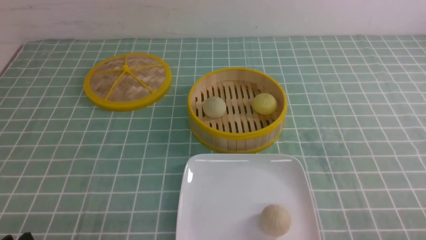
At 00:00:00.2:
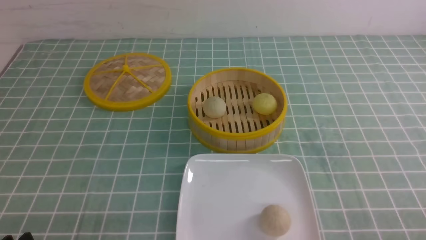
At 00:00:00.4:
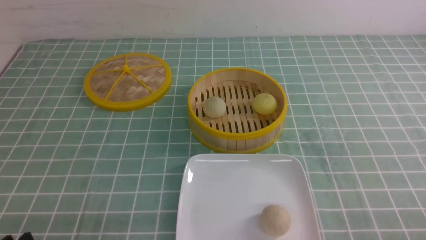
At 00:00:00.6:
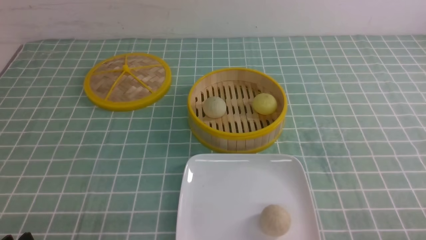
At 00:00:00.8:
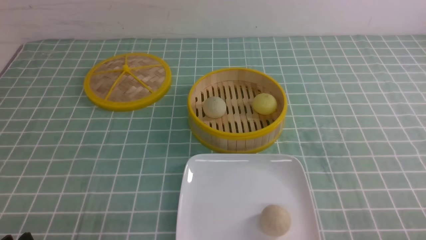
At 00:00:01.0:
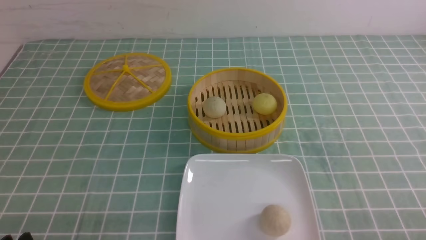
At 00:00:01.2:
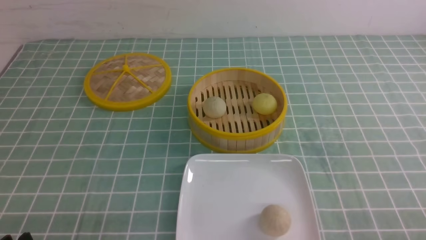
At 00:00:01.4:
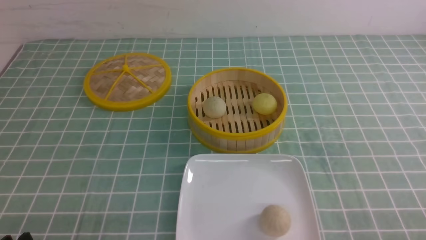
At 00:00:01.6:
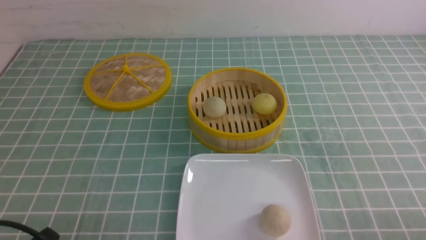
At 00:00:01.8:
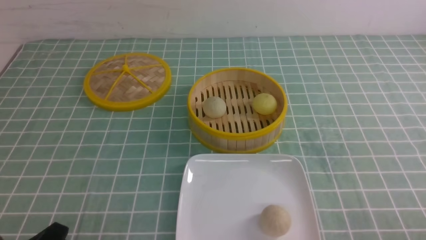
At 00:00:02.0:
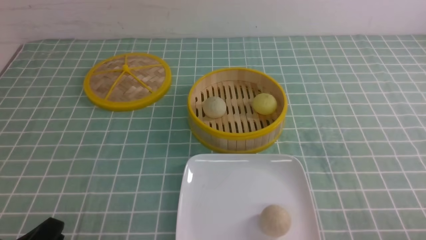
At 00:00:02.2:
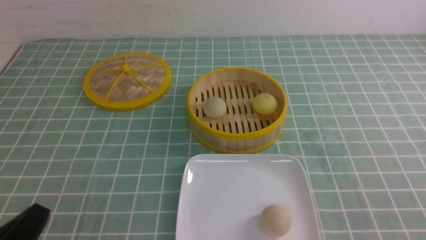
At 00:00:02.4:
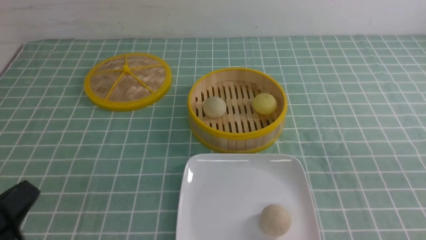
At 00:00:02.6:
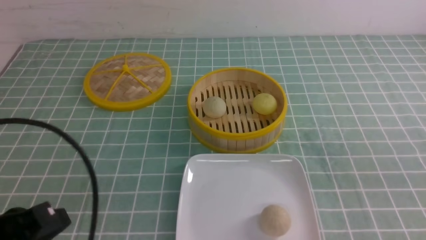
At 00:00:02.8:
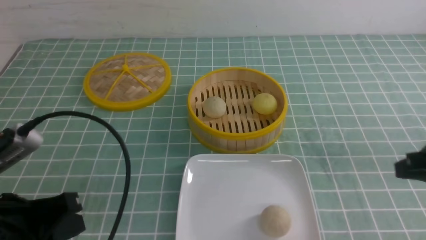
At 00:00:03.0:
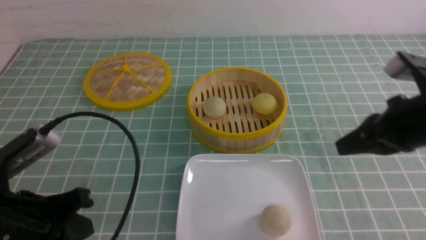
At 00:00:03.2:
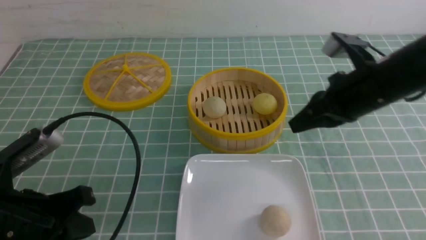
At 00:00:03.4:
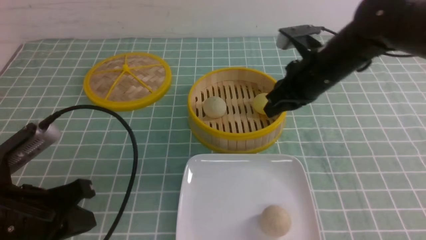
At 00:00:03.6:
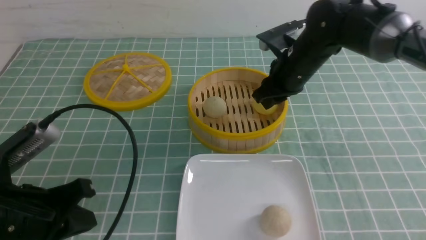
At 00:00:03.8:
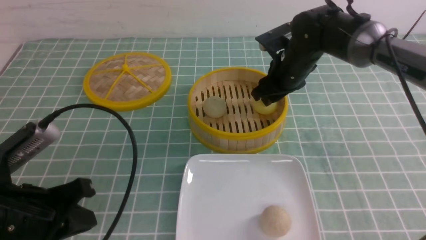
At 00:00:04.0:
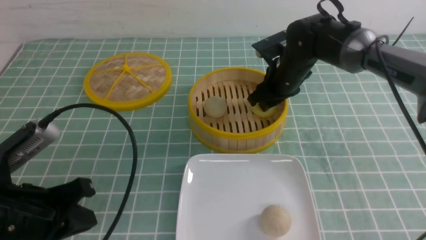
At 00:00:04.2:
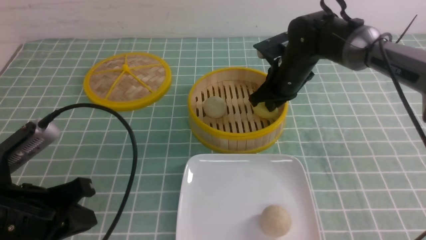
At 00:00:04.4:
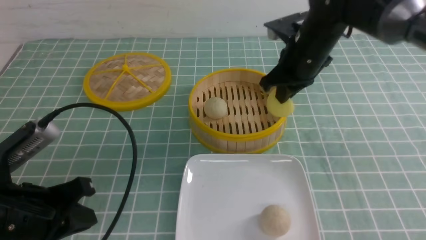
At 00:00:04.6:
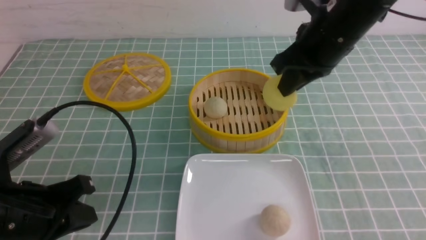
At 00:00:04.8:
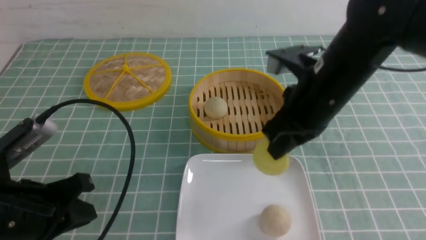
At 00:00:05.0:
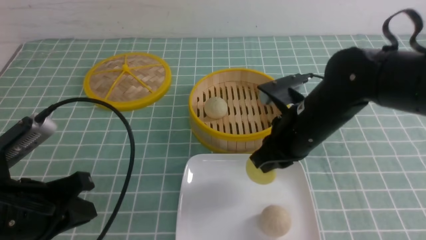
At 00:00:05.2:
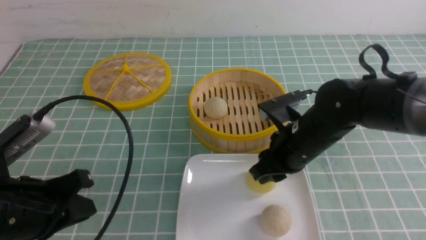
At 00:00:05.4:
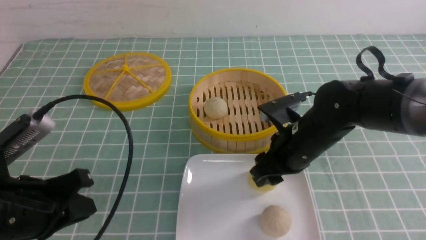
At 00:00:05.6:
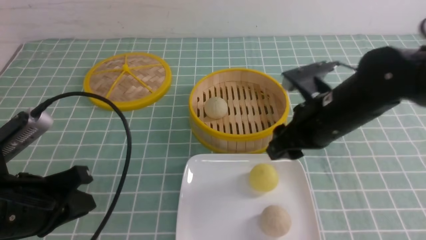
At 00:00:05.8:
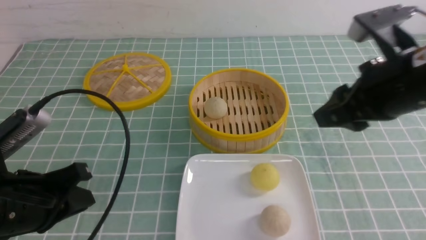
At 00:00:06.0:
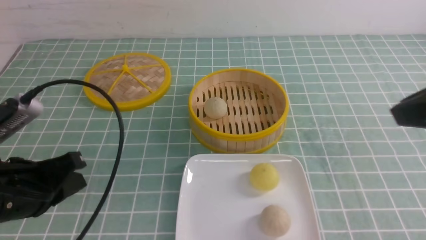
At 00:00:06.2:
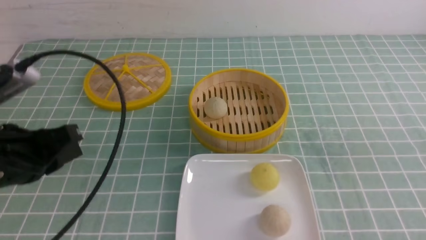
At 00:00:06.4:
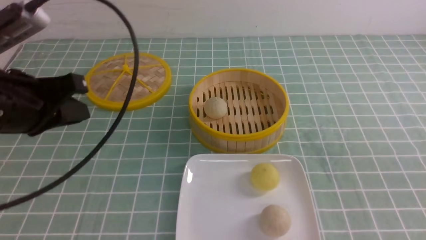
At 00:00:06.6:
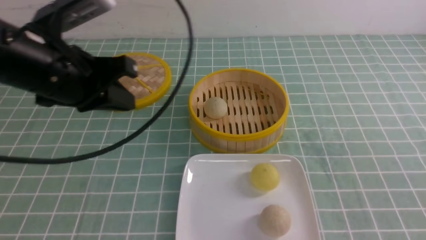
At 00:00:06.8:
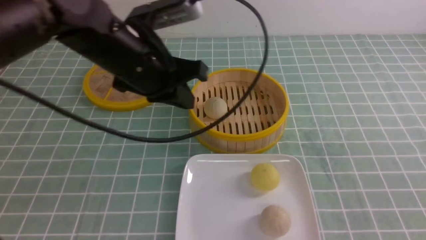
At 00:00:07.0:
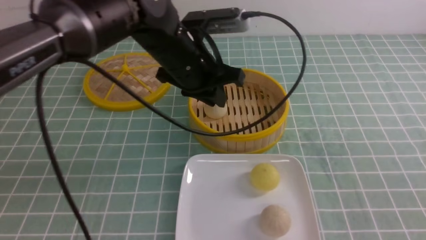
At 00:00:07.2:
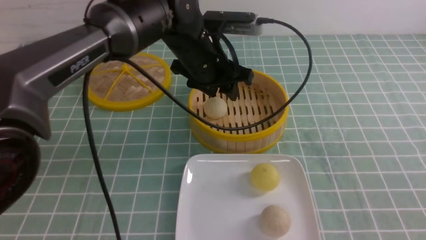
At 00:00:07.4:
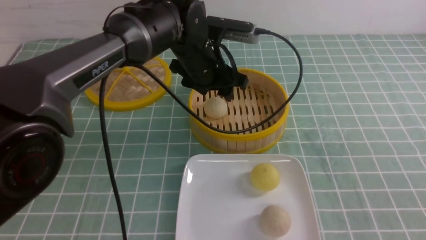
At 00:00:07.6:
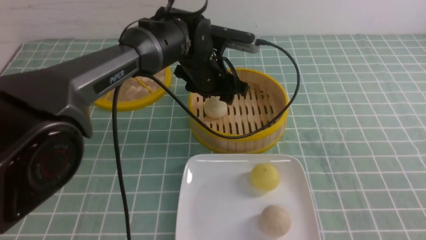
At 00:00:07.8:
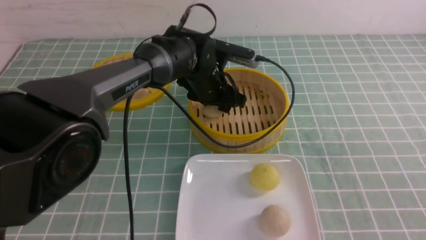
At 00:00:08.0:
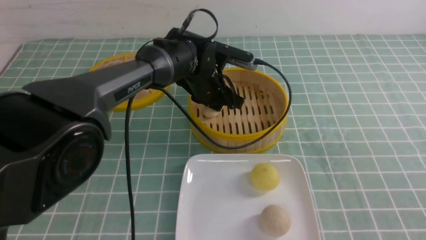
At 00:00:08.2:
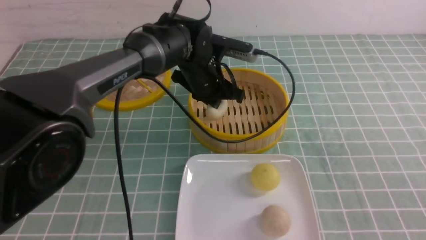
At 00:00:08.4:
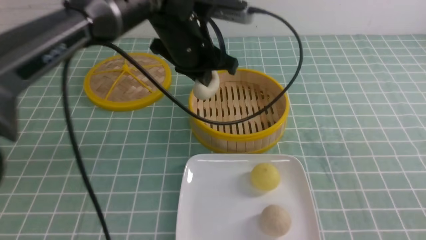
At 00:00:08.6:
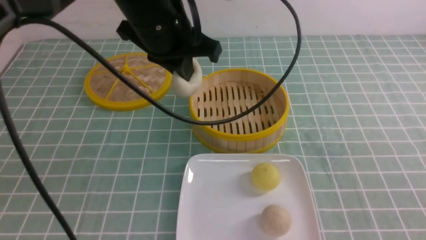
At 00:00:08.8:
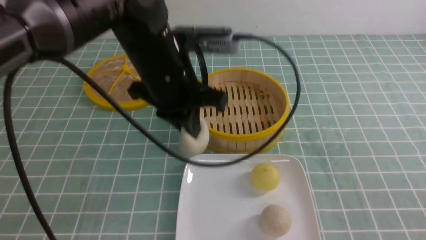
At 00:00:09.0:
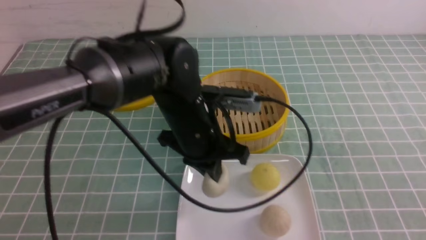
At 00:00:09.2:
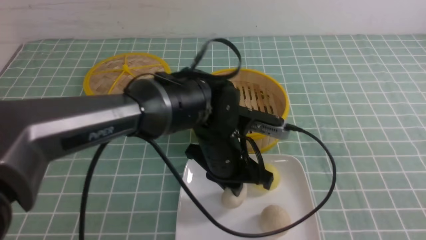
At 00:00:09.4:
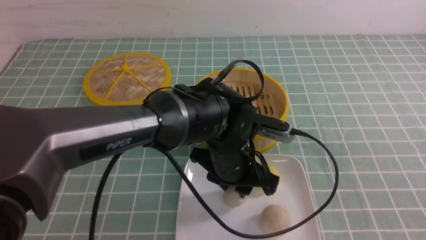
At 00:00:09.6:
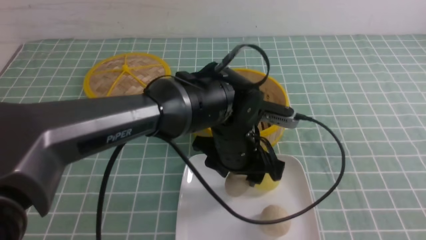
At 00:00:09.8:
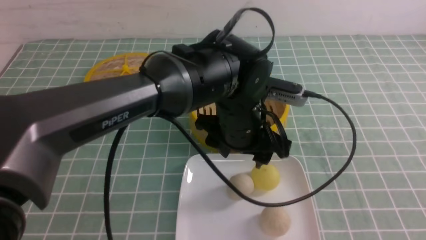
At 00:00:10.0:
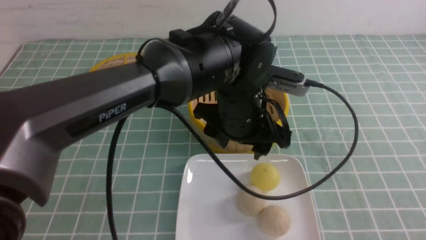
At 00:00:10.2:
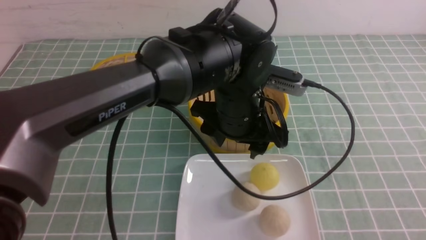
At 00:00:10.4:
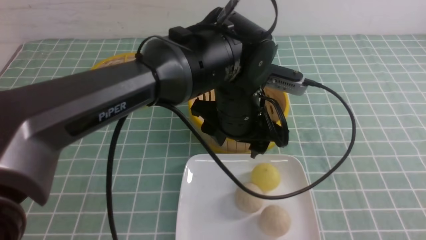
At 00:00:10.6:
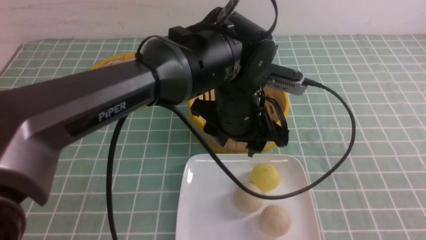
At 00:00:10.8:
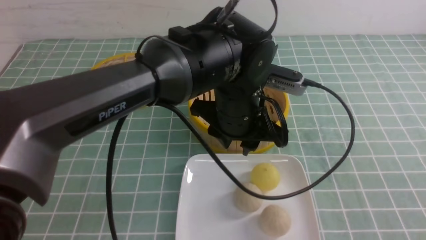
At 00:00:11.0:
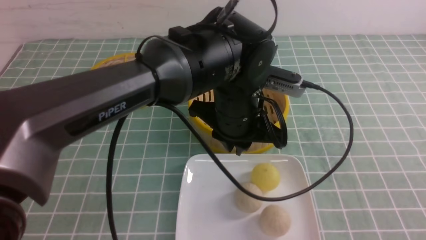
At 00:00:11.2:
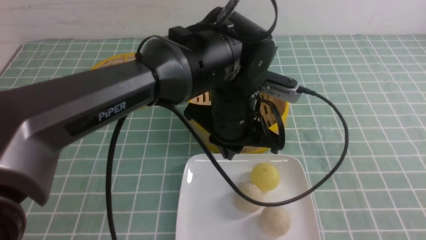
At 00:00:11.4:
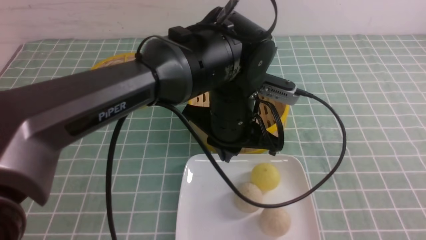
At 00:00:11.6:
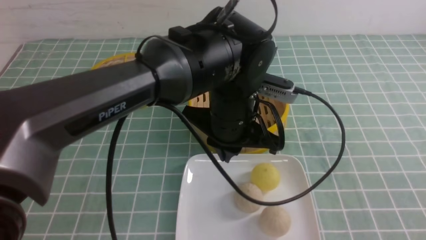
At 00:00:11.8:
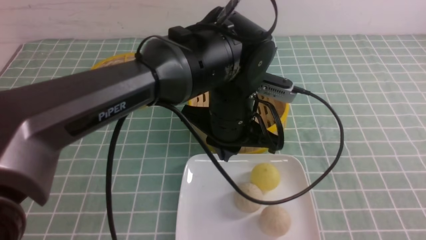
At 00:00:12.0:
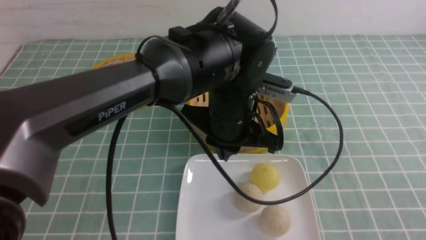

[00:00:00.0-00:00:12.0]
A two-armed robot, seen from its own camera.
Step, 00:00:00.0 to 00:00:04.2: use the right arm to grab the steamed stuffed bun that is closest to it.
Step, 00:00:04.4 to 00:00:05.4: use the right arm to put the steamed stuffed bun into the plate.
Step, 00:00:05.6 to 00:00:08.0: use the left arm to grab the steamed stuffed bun that is closest to it.
Step, 00:00:08.4 to 00:00:09.6: use the left arm to put the steamed stuffed bun into the plate.
00:00:01.6 to 00:00:03.0: The right gripper moves forward and upward, about 25 cm, and closes up, while the left gripper moves forward and upward, roughly 10 cm, and closes.
00:00:03.0 to 00:00:04.4: The right gripper shifts some 15 cm forward and to the left, and opens, then closes once more.
00:00:04.4 to 00:00:06.0: The right gripper heads backward, to the right and upward, covering some 25 cm, and opens its fingers.
00:00:06.0 to 00:00:07.6: The left gripper shifts approximately 35 cm forward and to the right, and opens its fingers. The right gripper shifts about 15 cm downward and backward, and closes its fingers.
00:00:07.6 to 00:00:09.0: The left gripper is displaced backward by approximately 15 cm, and closes up.
00:00:09.0 to 00:00:10.4: The right gripper moves backward, roughly 5 cm, while the left gripper moves to the right, some 5 cm, and opens.
00:00:10.4 to 00:00:12.0: The right gripper is displaced downward by approximately 5 cm; the left gripper closes its fingers.

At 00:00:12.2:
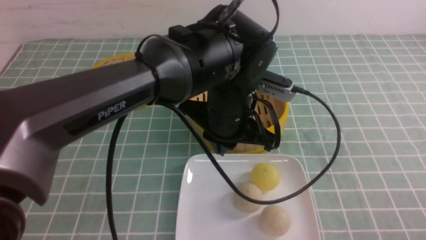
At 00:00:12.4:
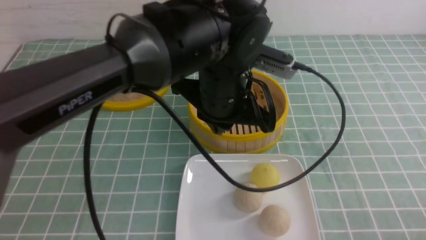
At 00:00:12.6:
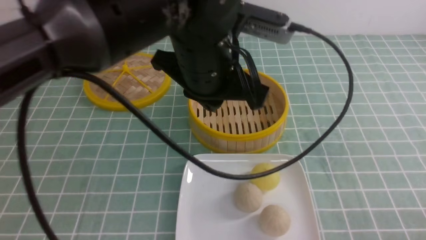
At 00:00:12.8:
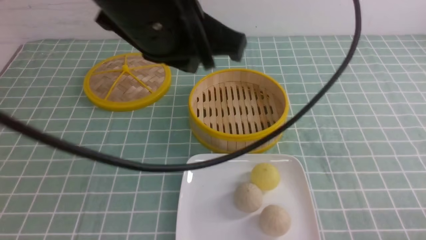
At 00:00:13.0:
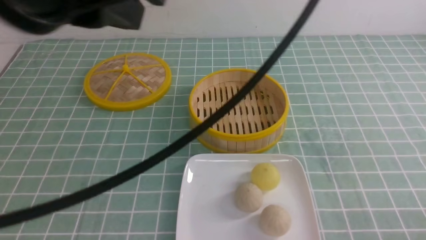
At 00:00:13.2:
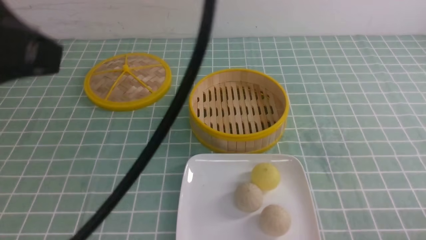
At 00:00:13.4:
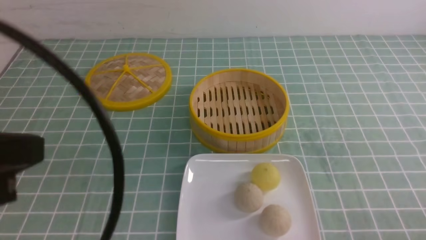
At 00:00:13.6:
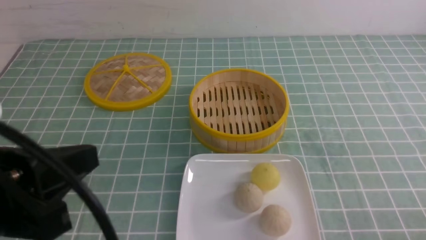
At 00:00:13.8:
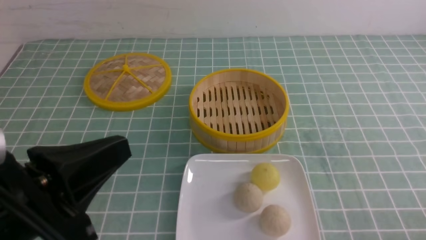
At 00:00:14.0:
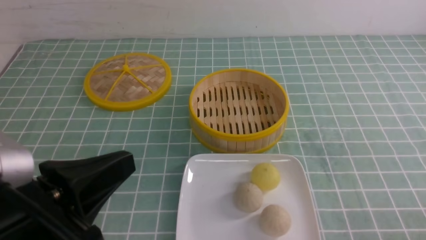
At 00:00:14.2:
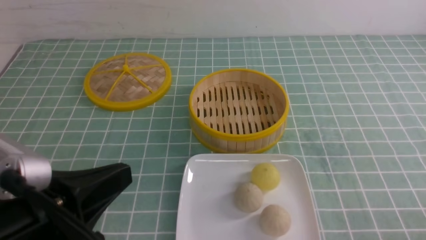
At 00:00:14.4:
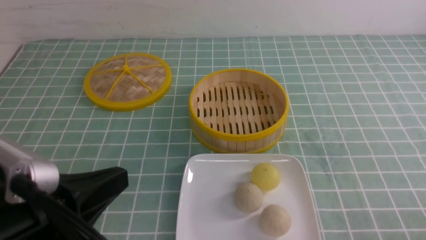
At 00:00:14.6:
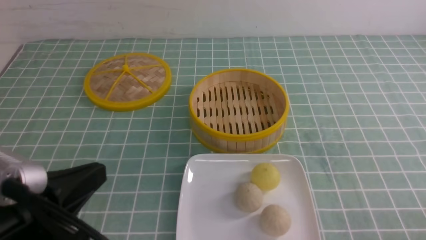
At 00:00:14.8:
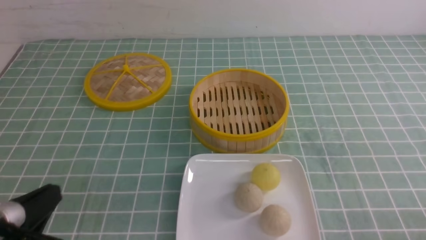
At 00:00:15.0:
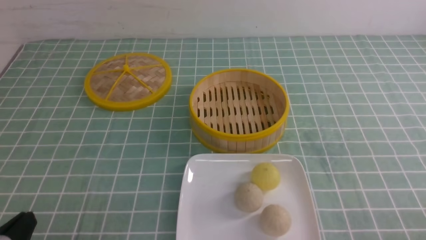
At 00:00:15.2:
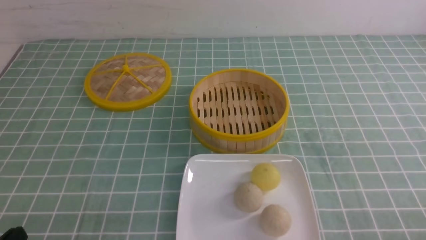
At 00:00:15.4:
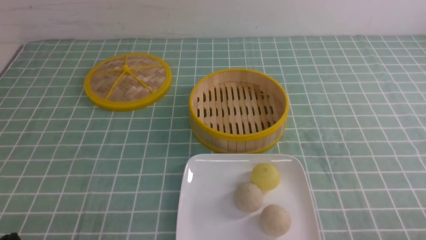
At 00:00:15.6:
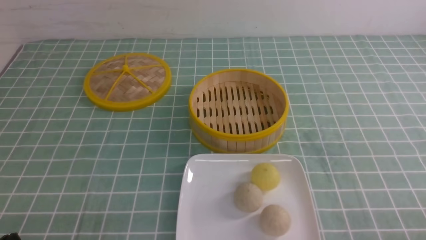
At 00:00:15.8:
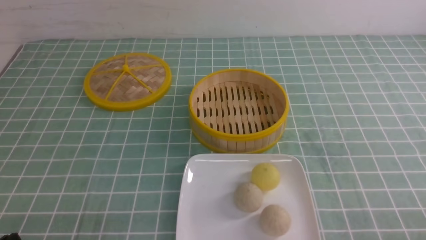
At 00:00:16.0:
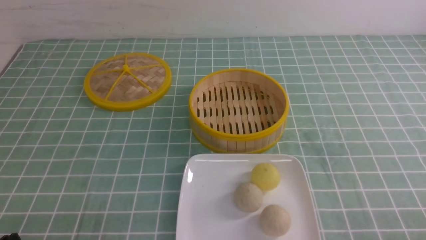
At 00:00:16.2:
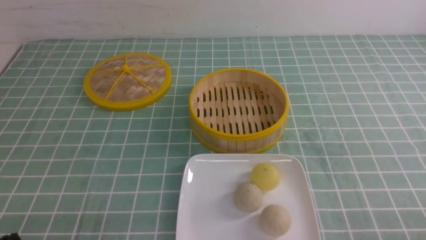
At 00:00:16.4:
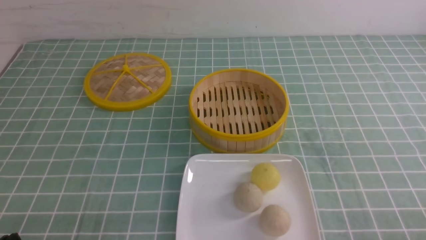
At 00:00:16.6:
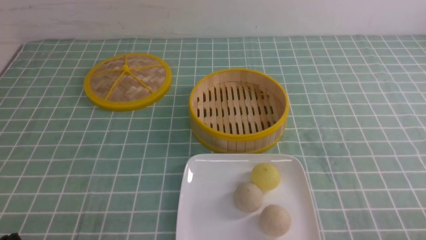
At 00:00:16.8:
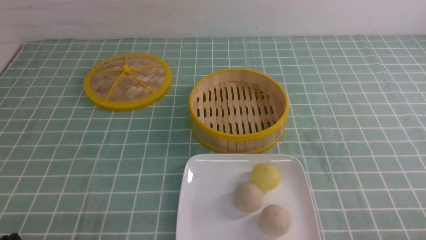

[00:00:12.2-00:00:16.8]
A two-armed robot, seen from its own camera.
00:00:12.2 to 00:00:13.8: The left gripper goes approximately 30 cm to the left and backward.
00:00:13.8 to 00:00:15.2: The left gripper is displaced downward and to the left by about 15 cm.
00:00:15.2 to 00:00:16.8: Both grippers stay put.
